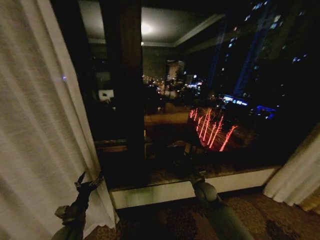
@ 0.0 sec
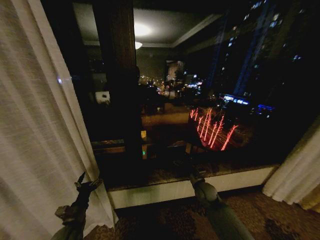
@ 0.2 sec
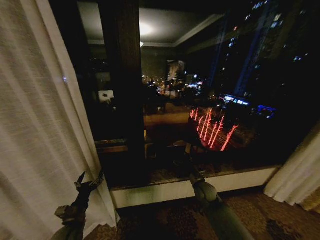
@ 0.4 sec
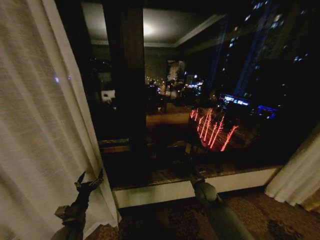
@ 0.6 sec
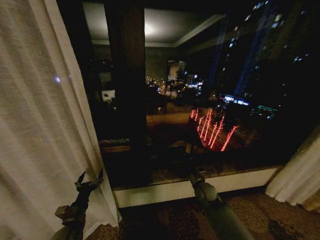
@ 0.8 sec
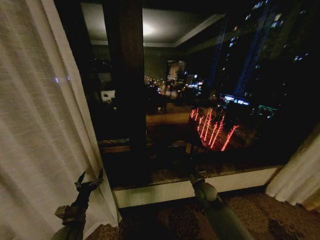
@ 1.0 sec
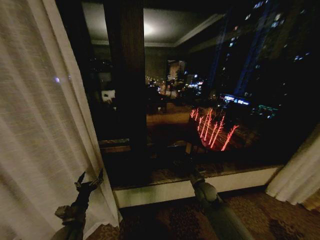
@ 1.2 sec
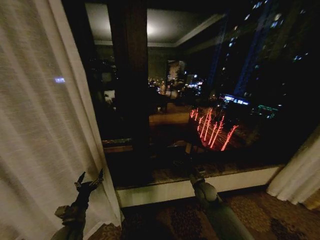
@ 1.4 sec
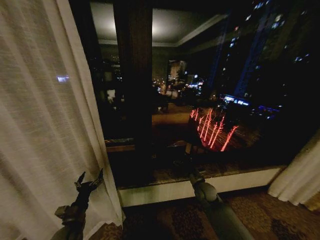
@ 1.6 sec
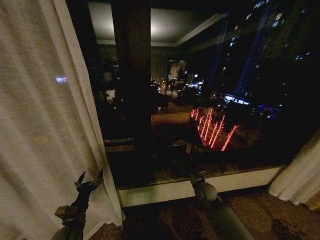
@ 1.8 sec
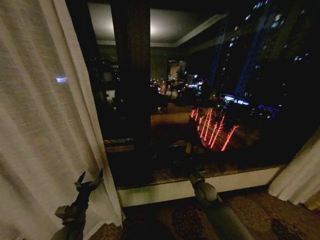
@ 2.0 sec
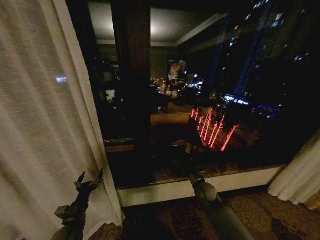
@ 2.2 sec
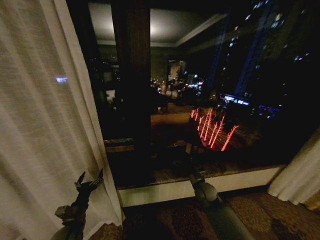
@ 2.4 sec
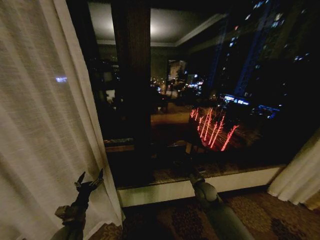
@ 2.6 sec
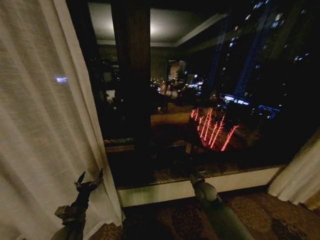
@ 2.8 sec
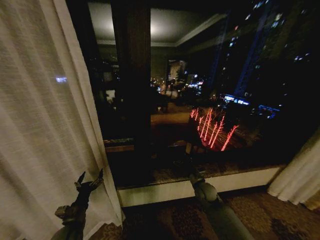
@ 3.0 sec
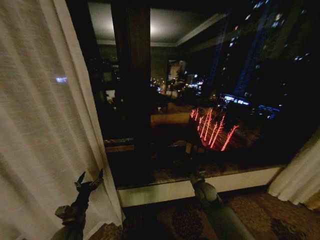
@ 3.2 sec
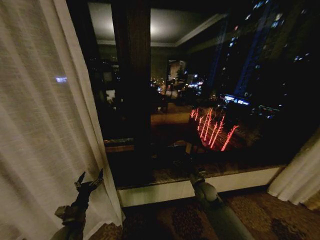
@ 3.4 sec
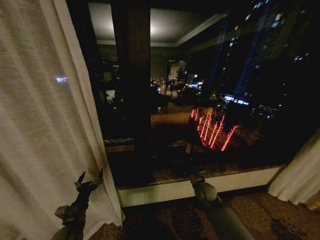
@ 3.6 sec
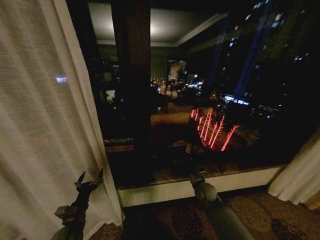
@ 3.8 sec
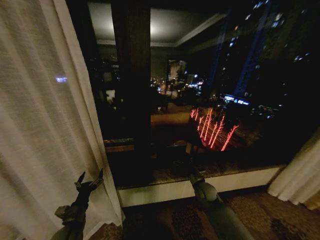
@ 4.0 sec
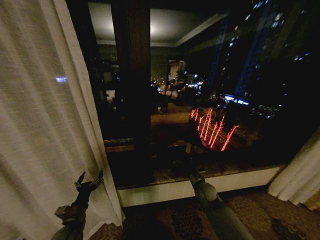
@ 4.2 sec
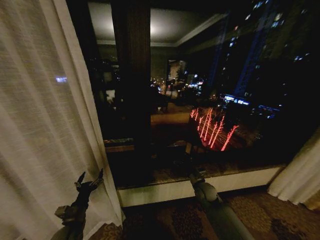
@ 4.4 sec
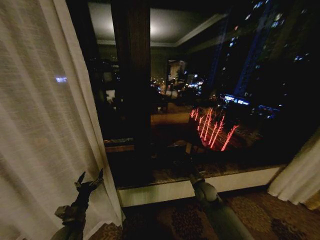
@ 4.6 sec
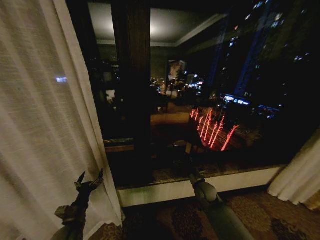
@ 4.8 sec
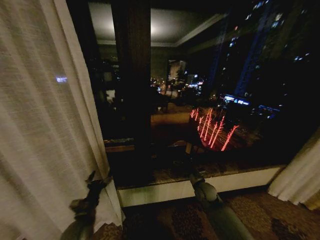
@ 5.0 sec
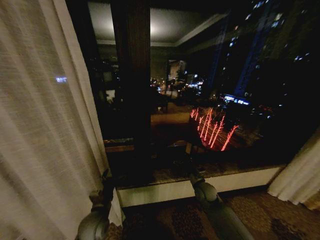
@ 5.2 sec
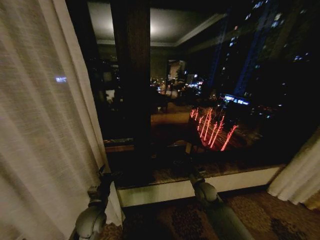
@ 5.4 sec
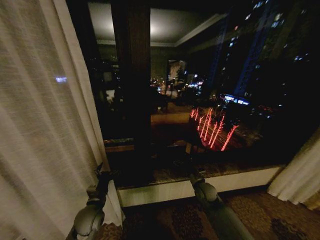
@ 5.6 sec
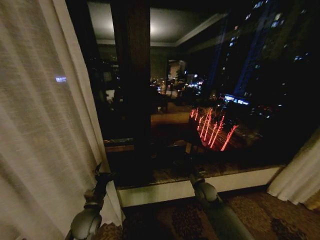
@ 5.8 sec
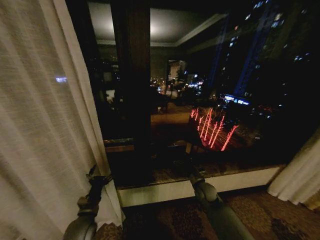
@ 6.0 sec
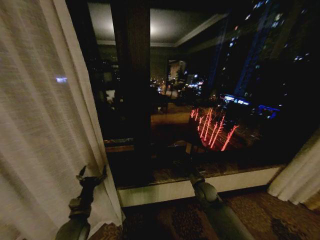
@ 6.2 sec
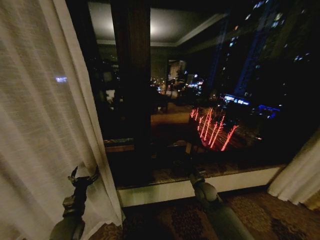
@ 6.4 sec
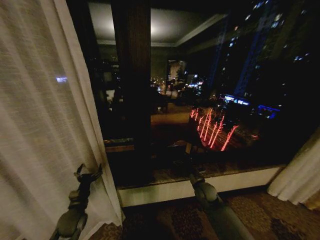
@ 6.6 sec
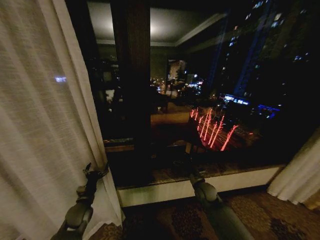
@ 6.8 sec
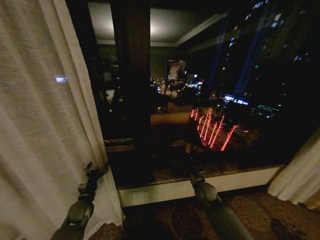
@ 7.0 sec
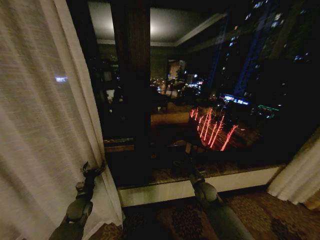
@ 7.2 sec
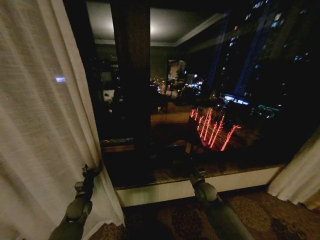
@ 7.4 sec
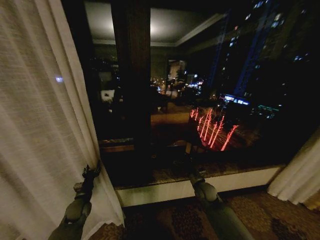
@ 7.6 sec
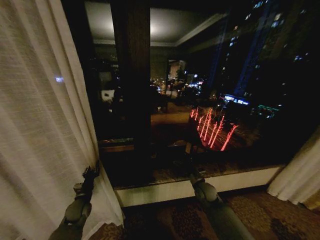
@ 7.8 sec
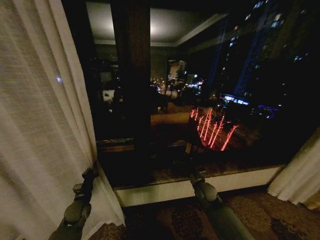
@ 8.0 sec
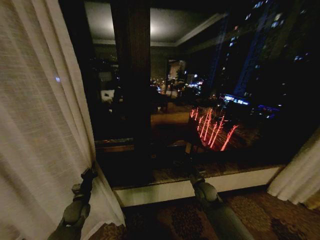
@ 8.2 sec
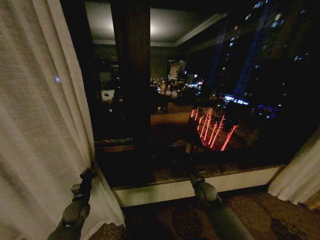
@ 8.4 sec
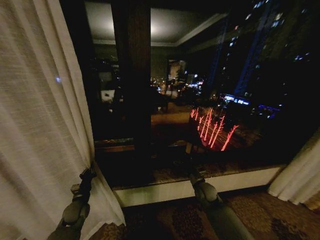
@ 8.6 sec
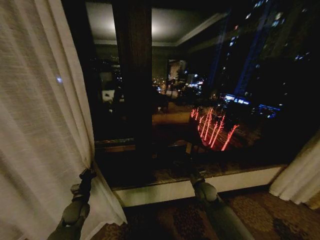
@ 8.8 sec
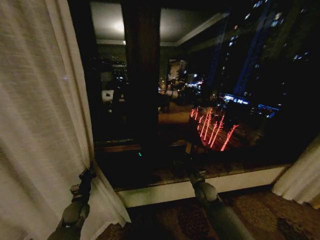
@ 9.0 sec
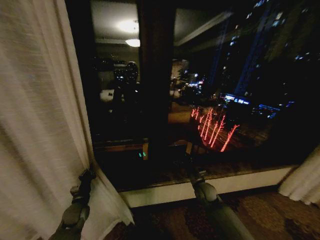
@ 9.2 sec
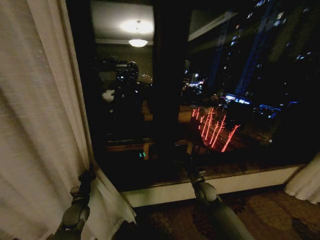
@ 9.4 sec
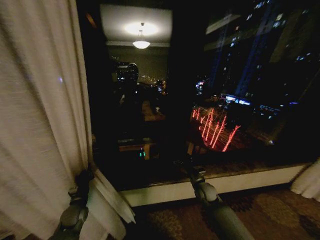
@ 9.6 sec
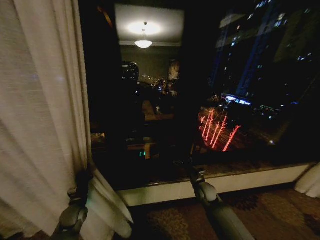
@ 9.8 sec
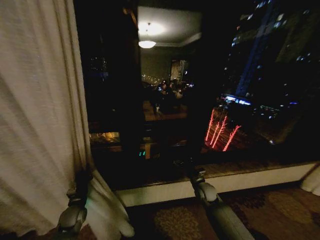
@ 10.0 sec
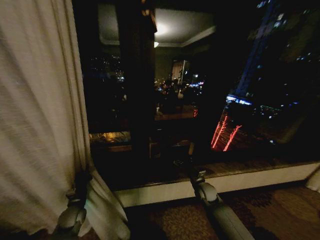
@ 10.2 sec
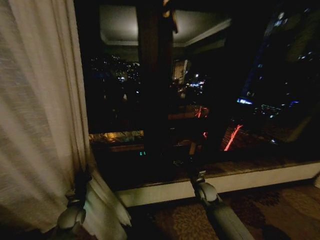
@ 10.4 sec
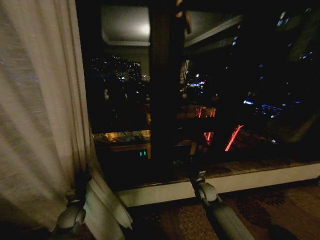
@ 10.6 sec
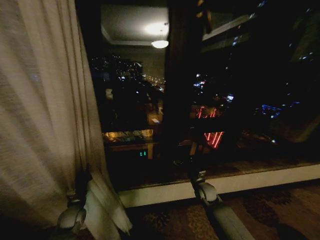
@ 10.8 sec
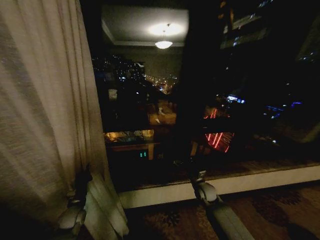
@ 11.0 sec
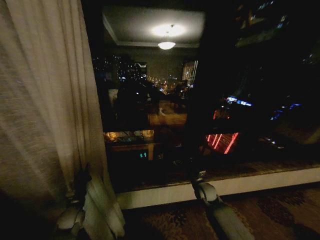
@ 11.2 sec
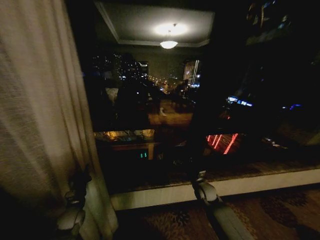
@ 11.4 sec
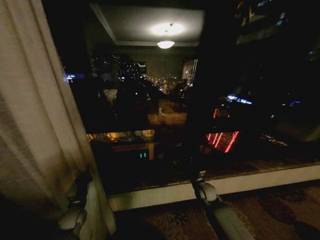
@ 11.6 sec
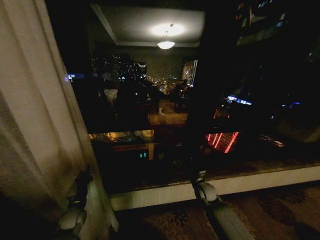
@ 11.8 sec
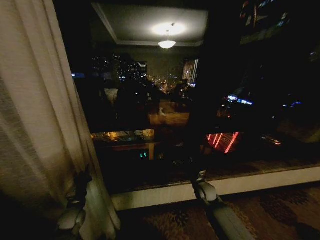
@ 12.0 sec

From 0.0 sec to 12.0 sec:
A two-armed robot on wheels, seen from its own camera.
Task of the whole recording: Open the curtains by pulling them apart, changing their state from closed to fully open.
From 0.0 sec to 4.4 sec: The two grippers keep their place.
From 6.0 sec to 7.6 sec: The left gripper goes approximately 15 cm forward, to the left and downward, and closes its fingers.
From 7.6 sec to 9.0 sec: The left gripper closes its fingers.

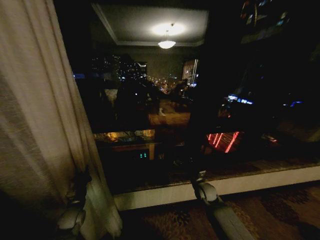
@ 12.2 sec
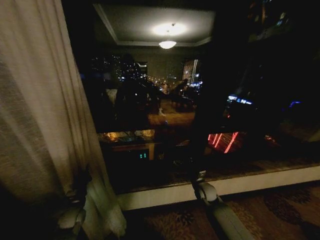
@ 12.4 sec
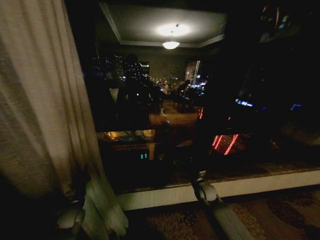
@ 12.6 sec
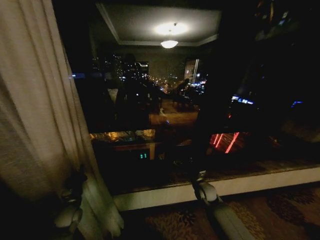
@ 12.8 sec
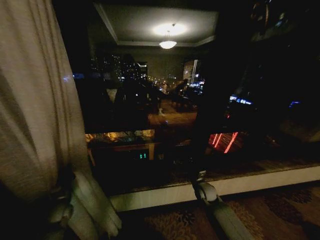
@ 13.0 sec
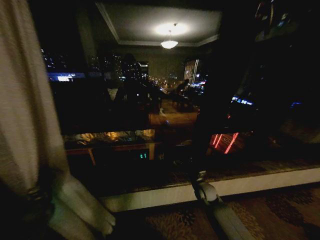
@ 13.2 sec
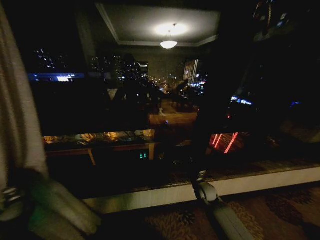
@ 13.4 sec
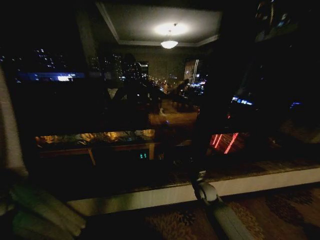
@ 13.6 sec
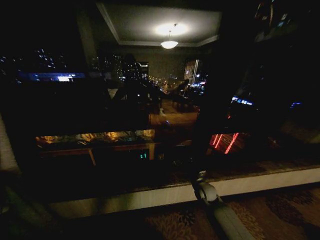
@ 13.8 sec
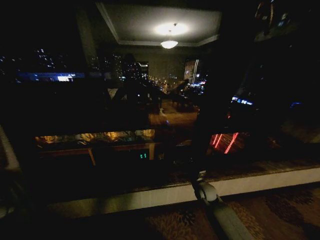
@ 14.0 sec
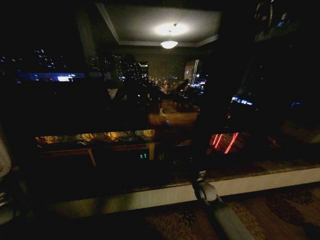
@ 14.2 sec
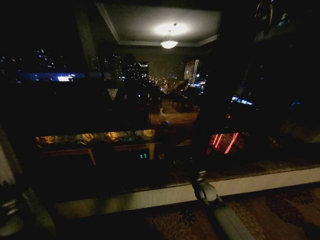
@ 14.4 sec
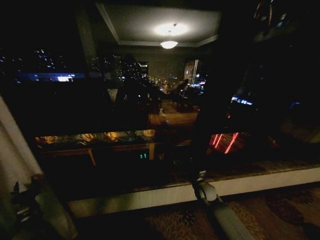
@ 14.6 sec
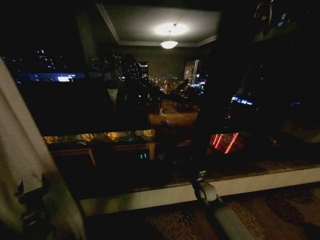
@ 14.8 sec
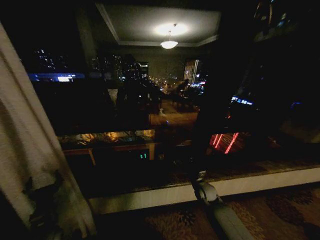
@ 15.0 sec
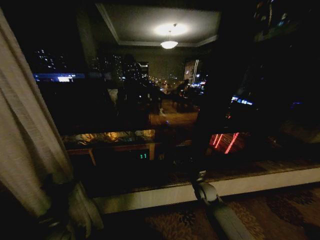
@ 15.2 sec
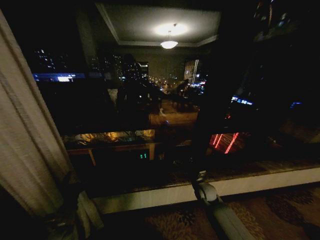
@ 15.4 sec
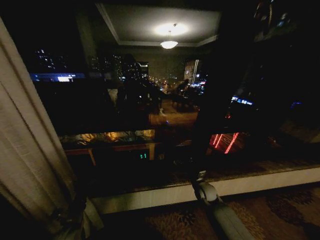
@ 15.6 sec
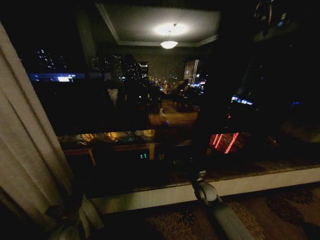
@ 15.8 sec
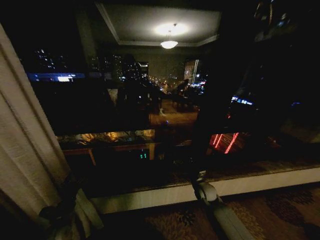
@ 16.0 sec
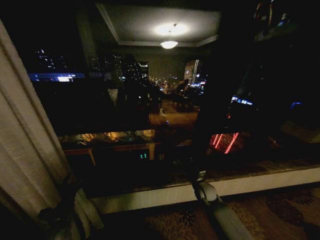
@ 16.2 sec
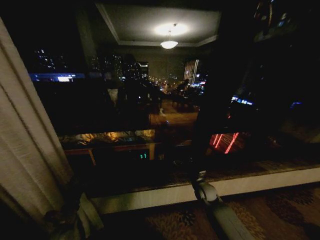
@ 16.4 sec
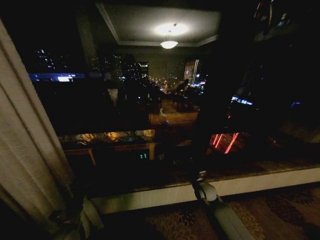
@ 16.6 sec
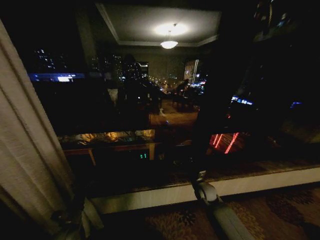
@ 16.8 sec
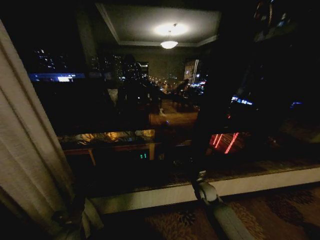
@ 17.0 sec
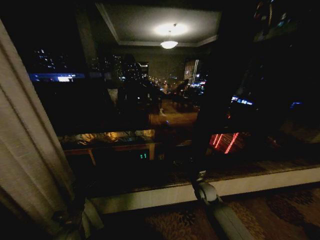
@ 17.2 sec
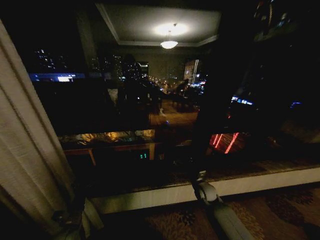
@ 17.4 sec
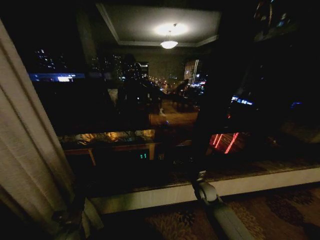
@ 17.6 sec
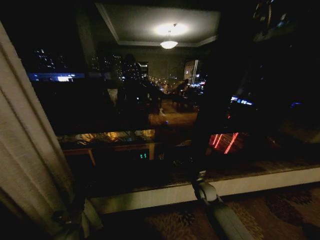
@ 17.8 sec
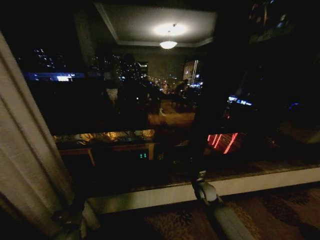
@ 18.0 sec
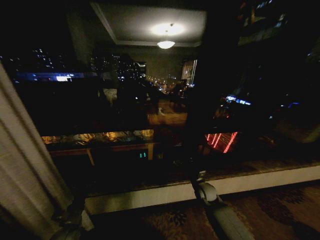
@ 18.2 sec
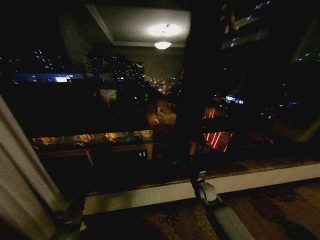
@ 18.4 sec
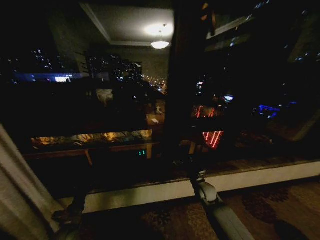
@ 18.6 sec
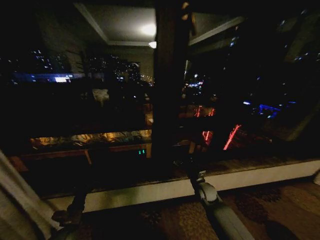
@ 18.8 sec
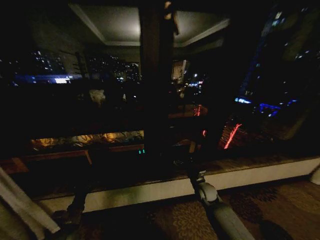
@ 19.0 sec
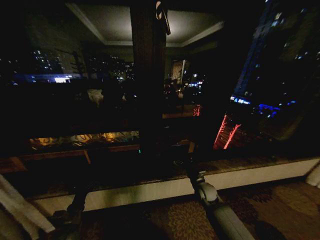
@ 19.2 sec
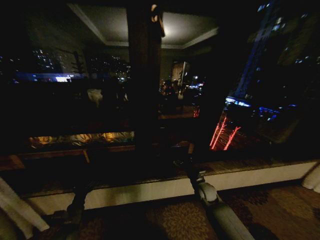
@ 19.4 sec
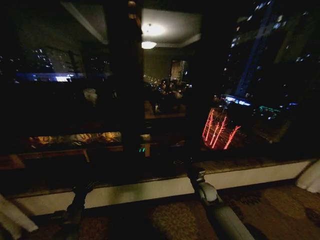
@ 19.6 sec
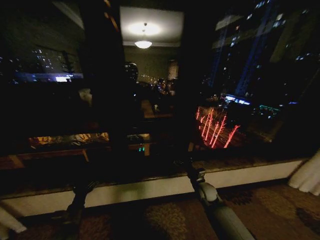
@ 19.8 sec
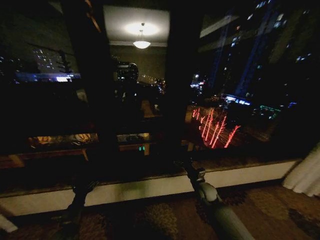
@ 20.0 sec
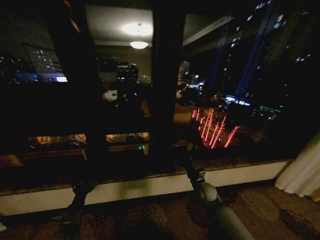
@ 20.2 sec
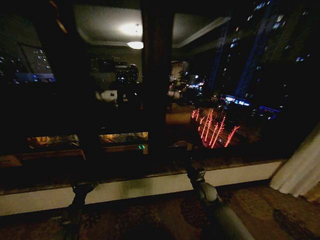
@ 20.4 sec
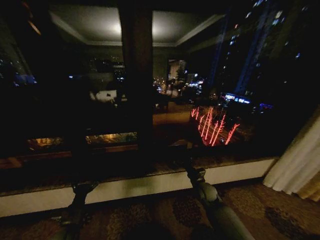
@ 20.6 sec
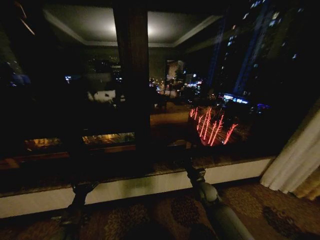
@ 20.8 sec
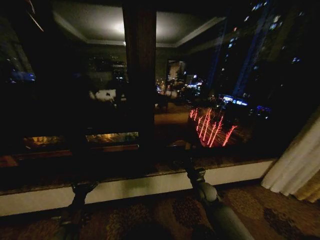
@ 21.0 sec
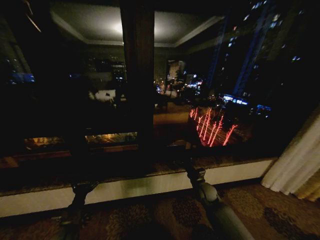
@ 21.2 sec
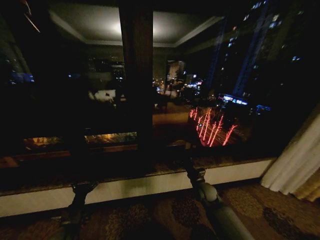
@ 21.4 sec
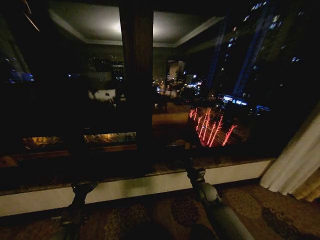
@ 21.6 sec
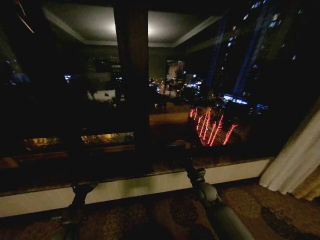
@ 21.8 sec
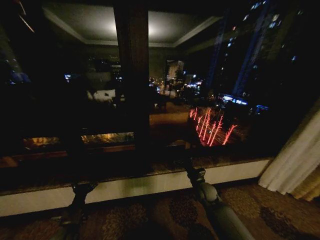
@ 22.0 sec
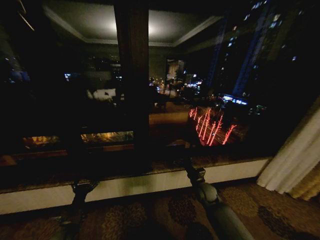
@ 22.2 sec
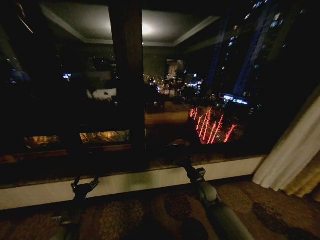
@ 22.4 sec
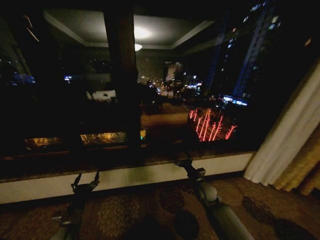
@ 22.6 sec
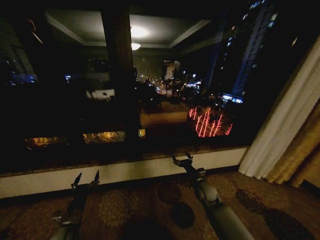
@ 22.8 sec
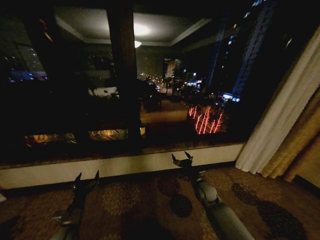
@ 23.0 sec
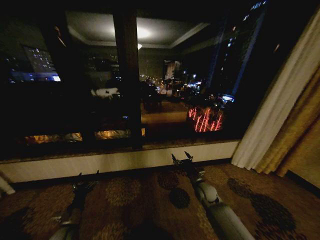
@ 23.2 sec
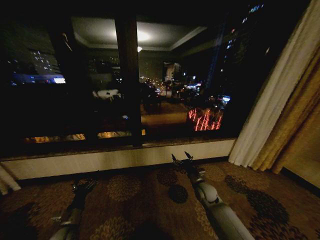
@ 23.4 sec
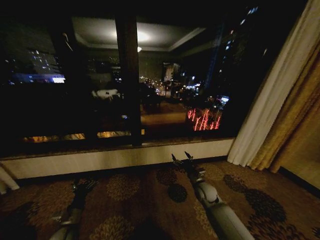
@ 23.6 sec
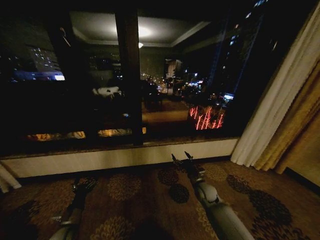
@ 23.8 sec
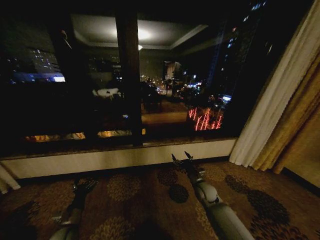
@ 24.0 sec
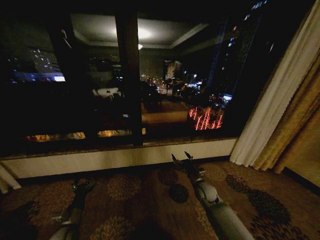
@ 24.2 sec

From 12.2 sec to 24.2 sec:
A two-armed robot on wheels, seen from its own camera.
Task of the whole recording: Open the curtains by pulling them apart, changing their state from closed to fully open.
From 12.2 sec to 13.8 sec: The left gripper heads to the left, covering some 30 cm.
From 13.8 sec to 15.2 sec: The left gripper is displaced to the right by some 30 cm, and opens.
From 16.6 sec to 18.2 sec: Both grippers stay put.
